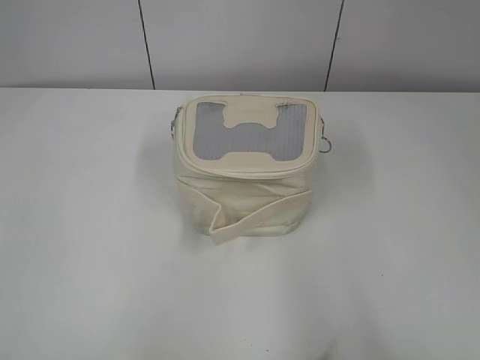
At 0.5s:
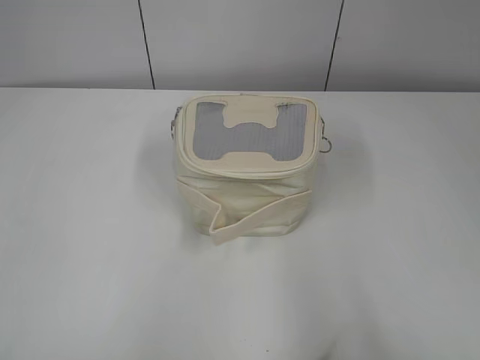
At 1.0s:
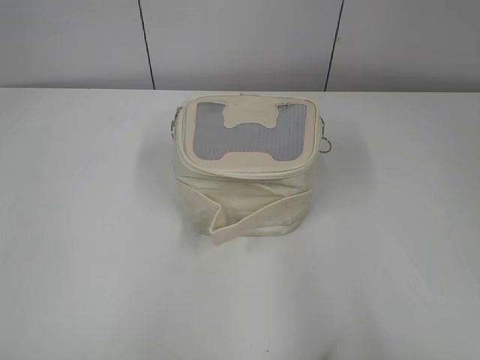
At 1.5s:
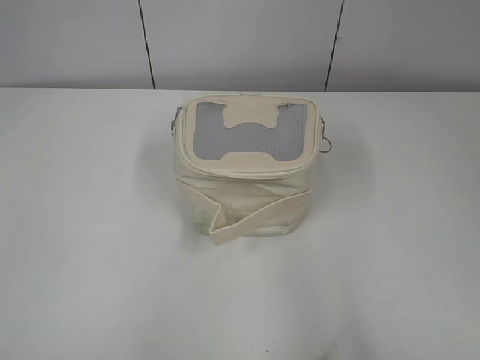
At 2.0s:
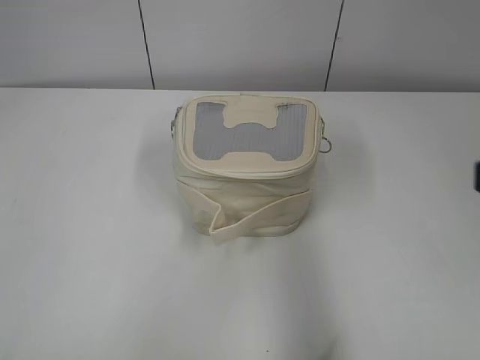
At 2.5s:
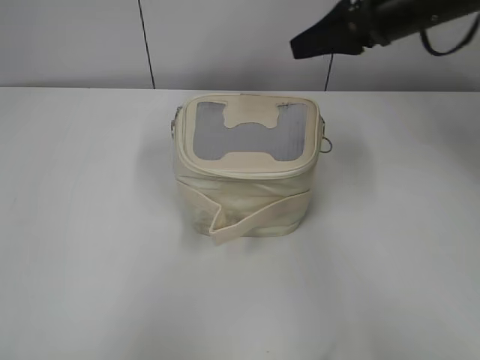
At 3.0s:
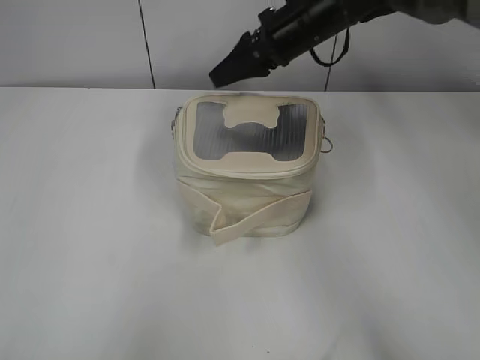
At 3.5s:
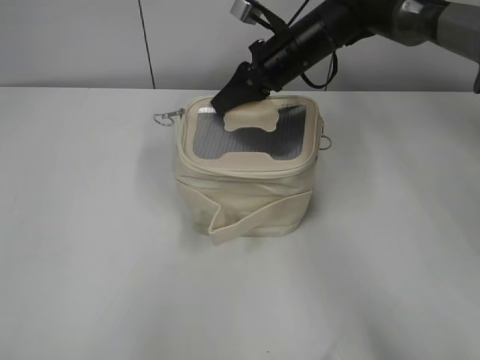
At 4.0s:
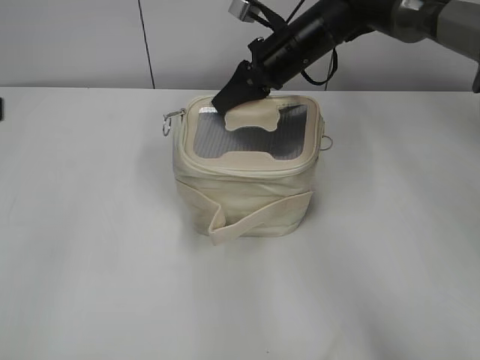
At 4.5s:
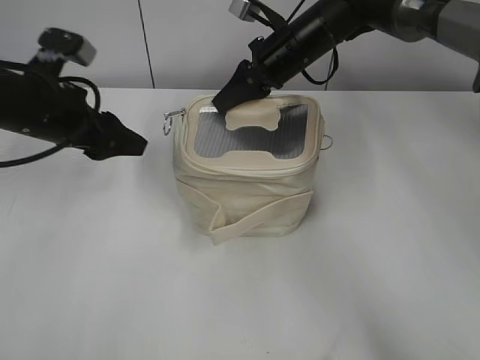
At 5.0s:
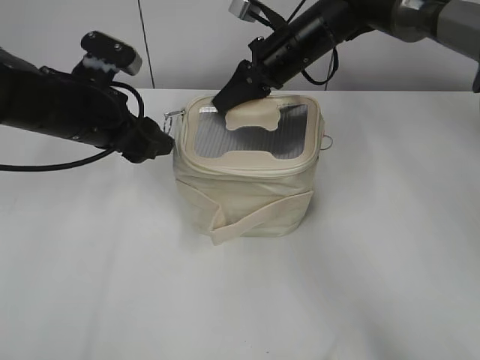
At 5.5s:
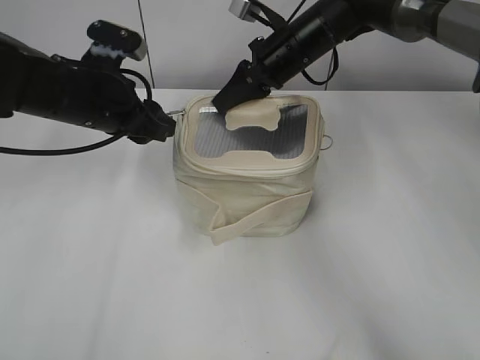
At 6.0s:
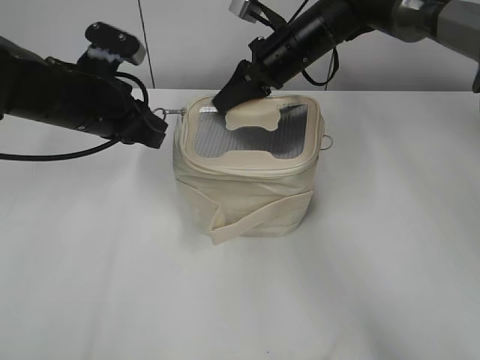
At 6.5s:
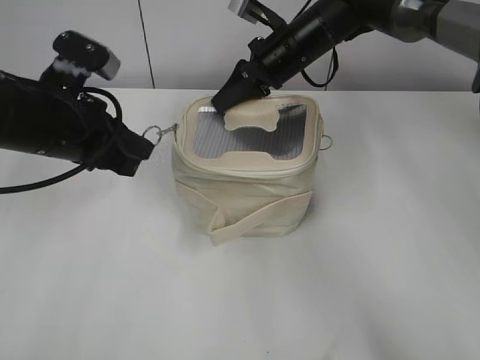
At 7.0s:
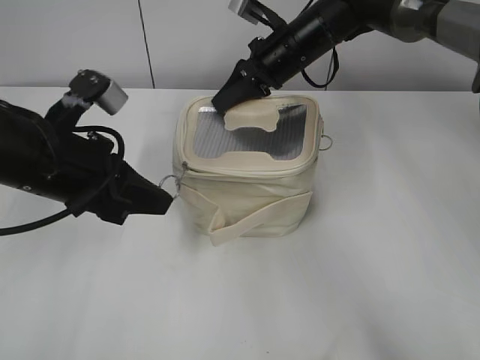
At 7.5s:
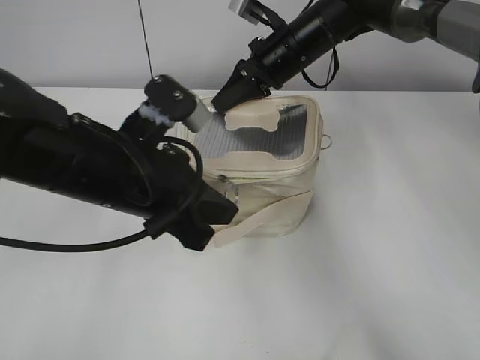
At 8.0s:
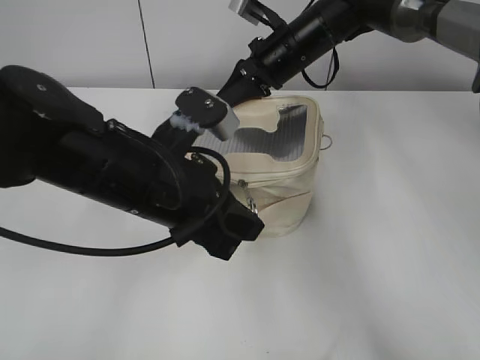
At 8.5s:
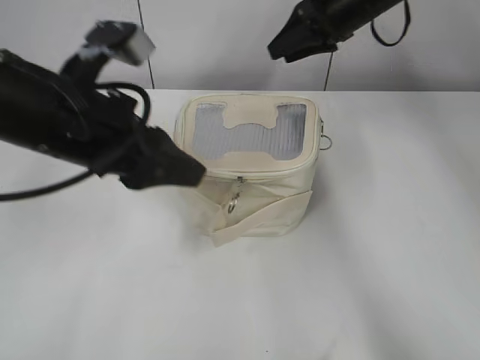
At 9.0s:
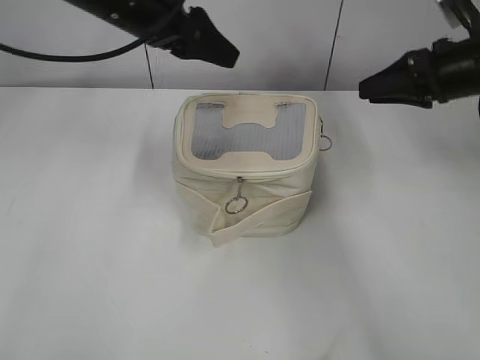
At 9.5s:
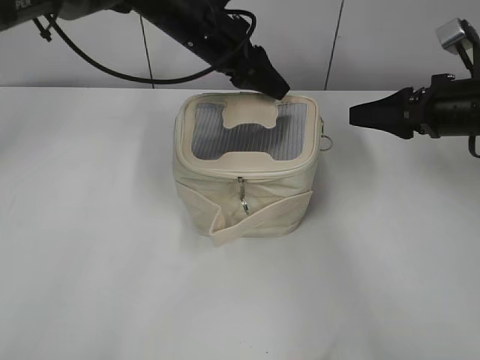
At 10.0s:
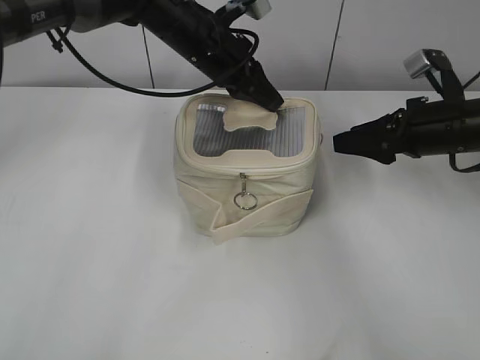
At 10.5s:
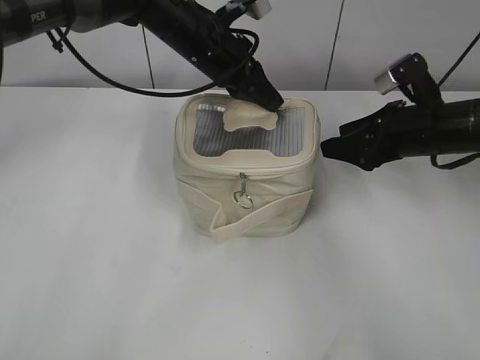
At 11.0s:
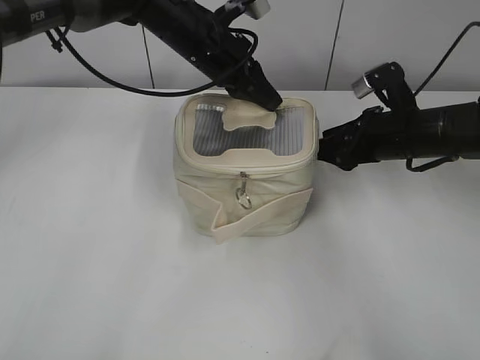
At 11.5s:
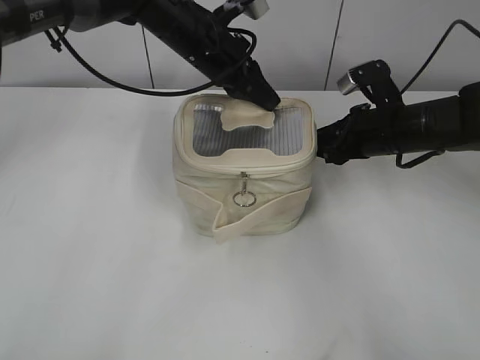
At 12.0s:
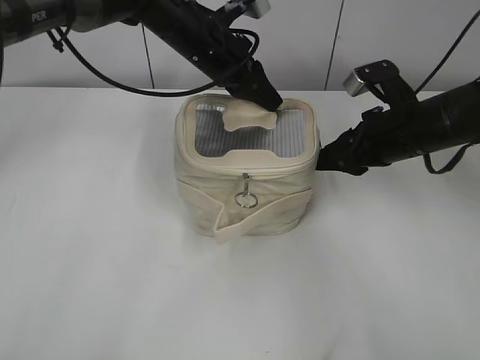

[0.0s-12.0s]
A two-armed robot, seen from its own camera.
Step, 0.0s to 8.0s: Zip up the bag with your left hand.
2.0s to 4.0s: The left gripper moves forward, some 15 cm. The right gripper moves forward and to the left, roughly 40 cm, and closes.
4.0s to 6.0s: The left gripper is displaced forward, to the right and downward by roughly 25 cm, and closes.
6.0s to 8.0s: The left gripper heads backward and to the right, covering approximately 15 cm.
8.0s to 10.0s: The left gripper heads forward, covering roughly 20 cm, and opens and closes again, while the right gripper goes approximately 20 cm to the right and backward, and opens.
10.0s to 12.0s: The right gripper is displaced to the left by some 5 cm, and closes up.

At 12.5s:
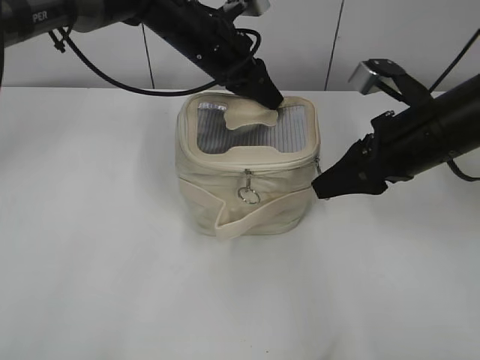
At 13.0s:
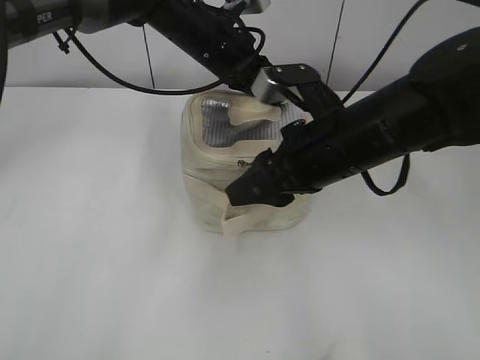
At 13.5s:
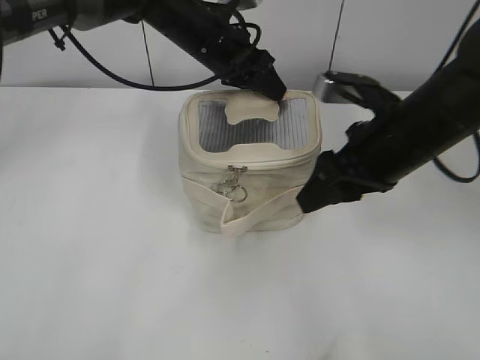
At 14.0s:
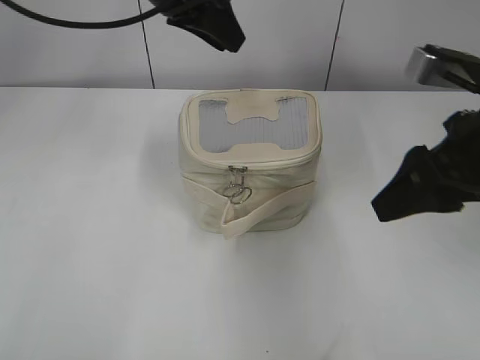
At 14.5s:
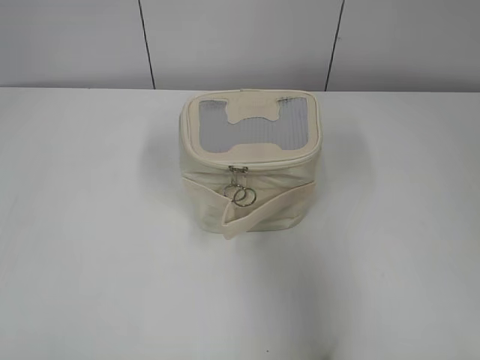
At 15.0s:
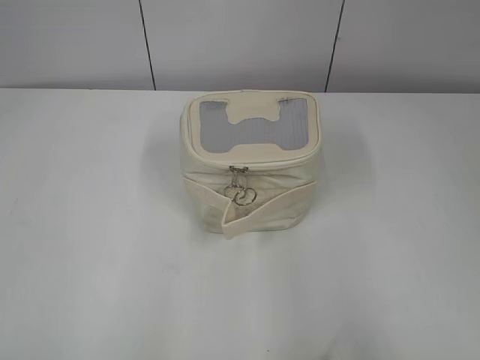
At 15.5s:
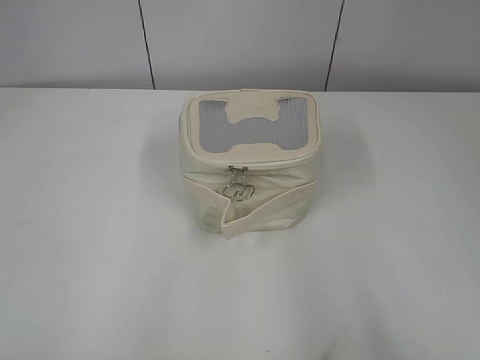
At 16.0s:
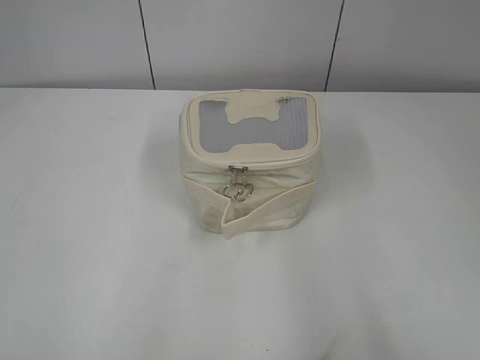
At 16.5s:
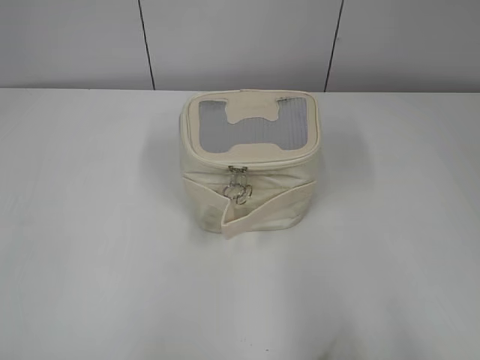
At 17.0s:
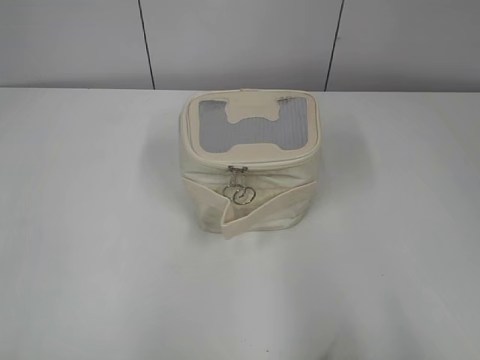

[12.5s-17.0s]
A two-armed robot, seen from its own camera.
12.5s to 14.5s: The left gripper heads backward, to the left and upward, covering some 40 cm, and opens, while the right gripper heads backward and upward, covering about 20 cm.
14.5s to 17.0s: The right gripper travels backward and to the right by some 15 cm. Meanwhile the left gripper goes some 20 cm backward, downward and to the left, and opens, then closes again.

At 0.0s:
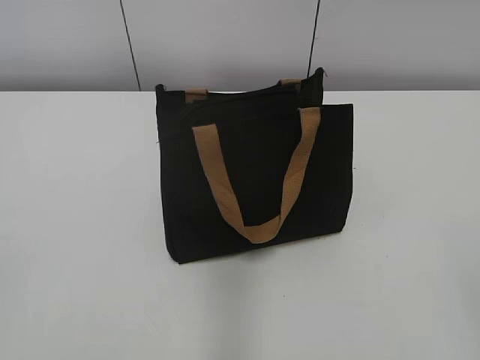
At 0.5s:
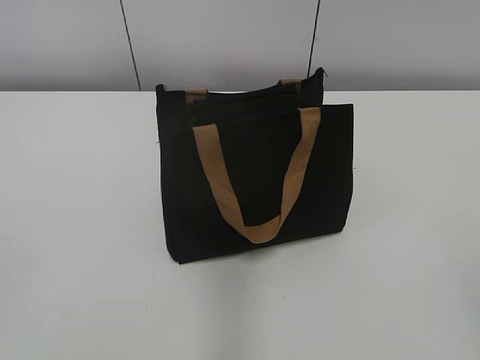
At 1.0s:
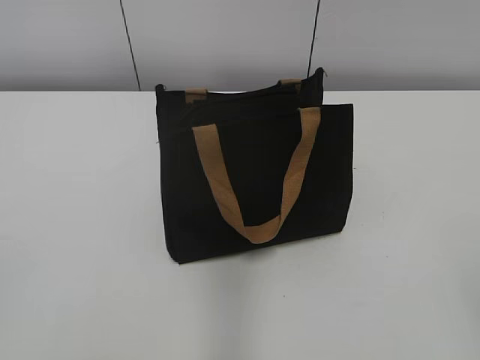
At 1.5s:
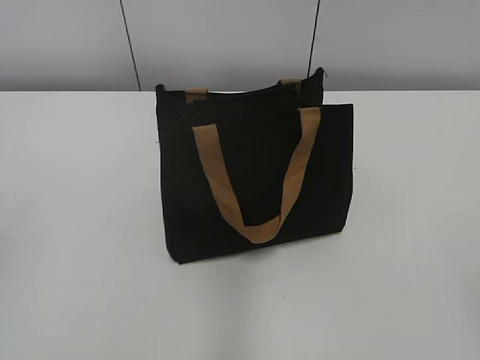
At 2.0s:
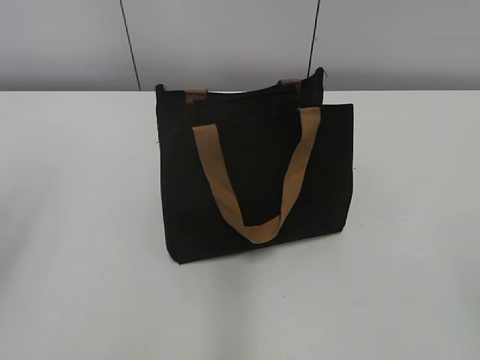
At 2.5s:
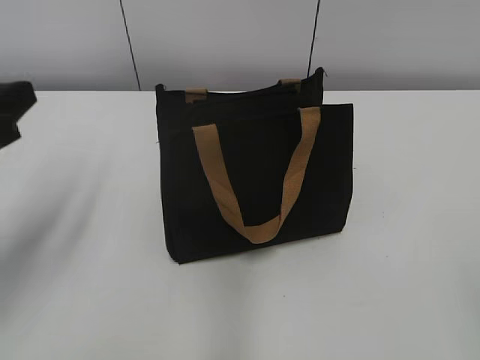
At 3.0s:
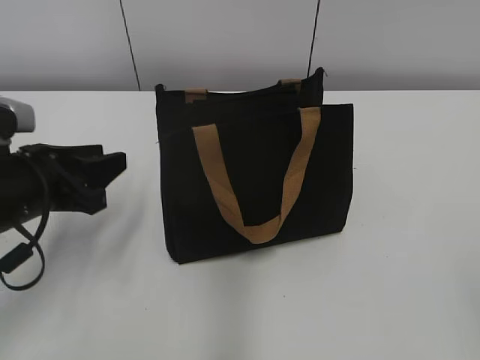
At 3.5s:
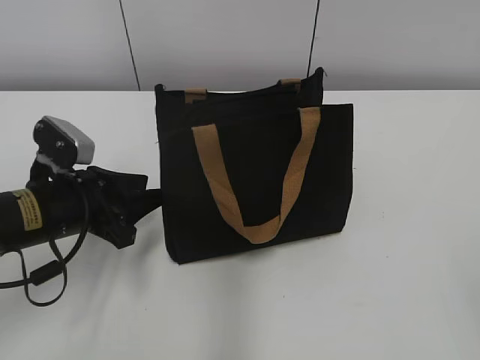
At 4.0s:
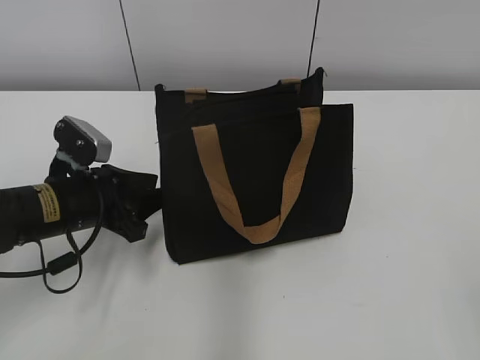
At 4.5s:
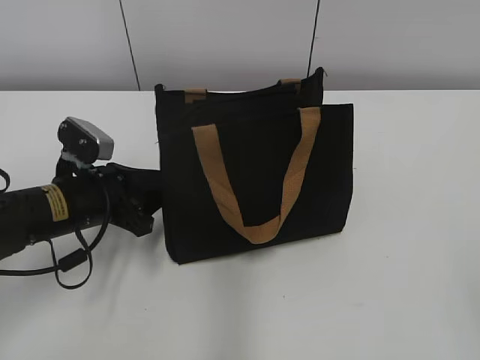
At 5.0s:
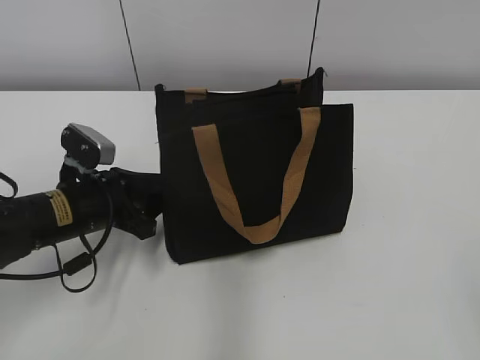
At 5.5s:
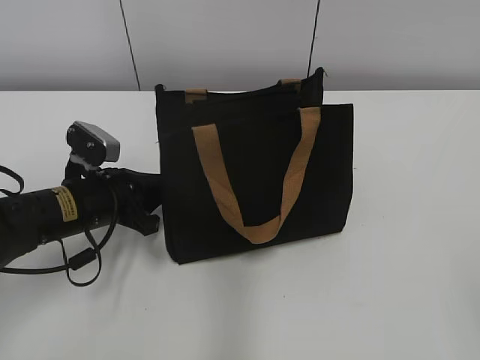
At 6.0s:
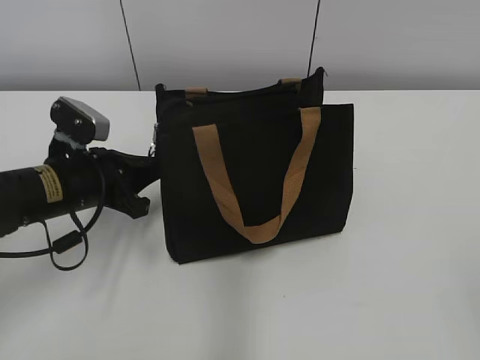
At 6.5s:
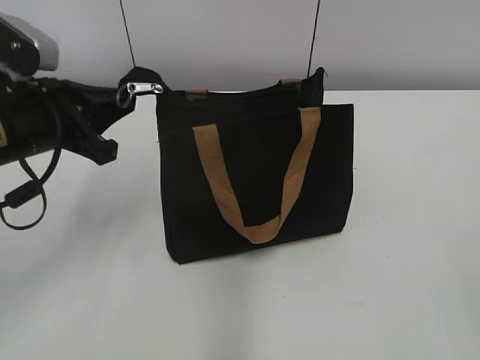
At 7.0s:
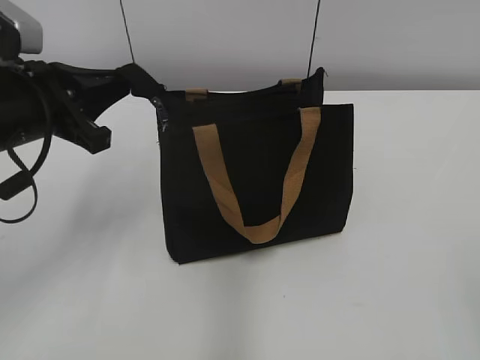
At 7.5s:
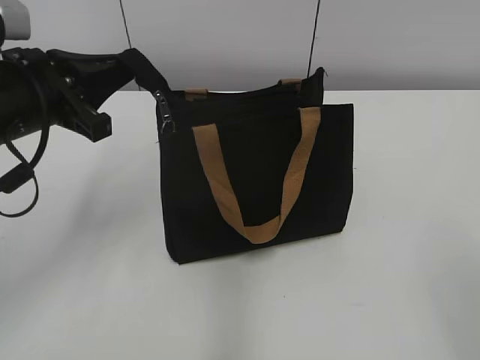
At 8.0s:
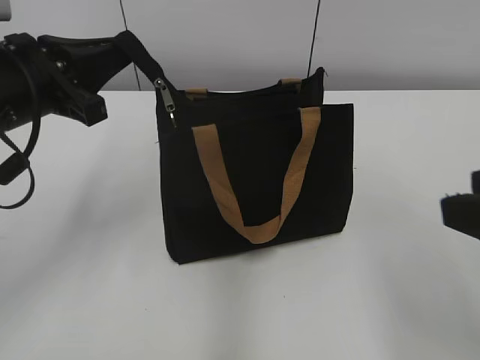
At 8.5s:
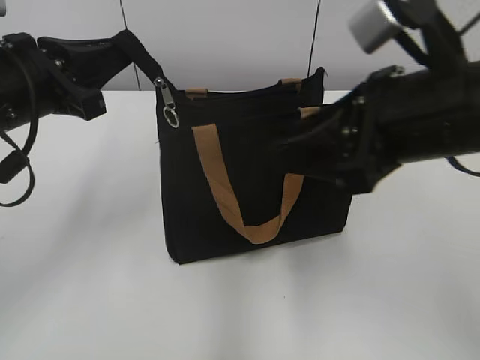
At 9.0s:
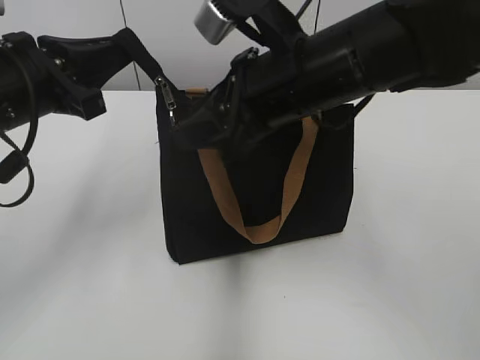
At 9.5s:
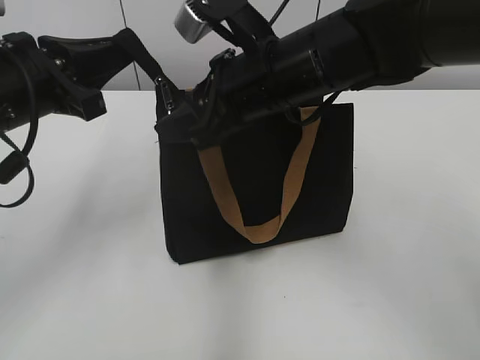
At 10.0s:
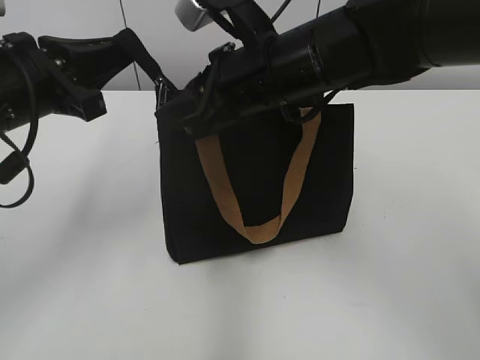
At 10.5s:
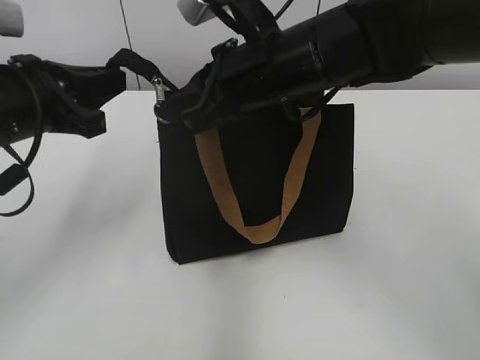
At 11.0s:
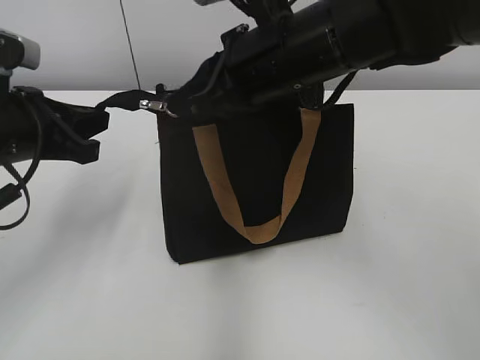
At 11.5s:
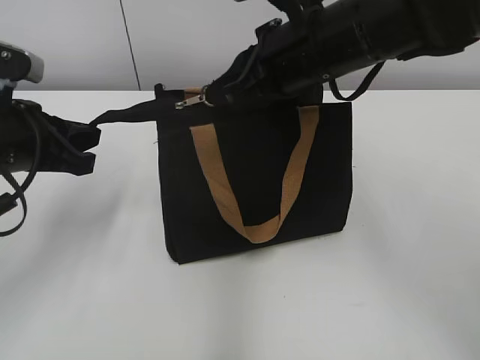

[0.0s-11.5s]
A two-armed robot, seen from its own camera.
2.0s to 4.0s: The left gripper is displaced downward, forward and to the right by about 30 cm.
4.0s to 6.0s: The left gripper closes up.
6.0s to 7.5s: The left gripper goes approximately 10 cm upward.
7.5s to 9.5s: The right gripper goes about 40 cm forward and to the left.
9.5s to 11.5s: The right gripper closes. Meanwhile the left gripper moves some 5 cm.
